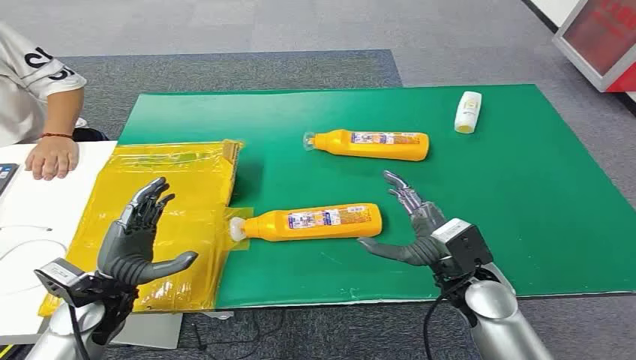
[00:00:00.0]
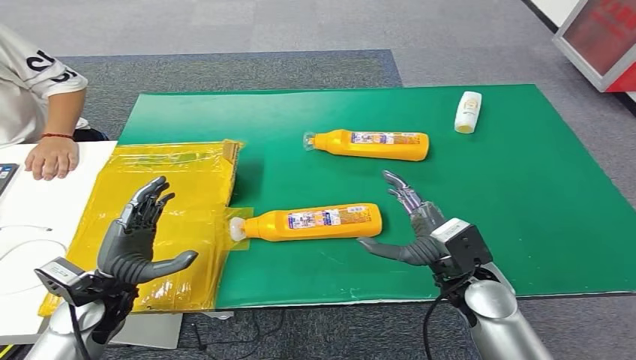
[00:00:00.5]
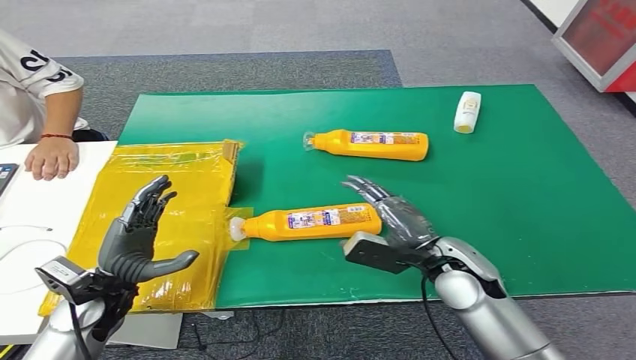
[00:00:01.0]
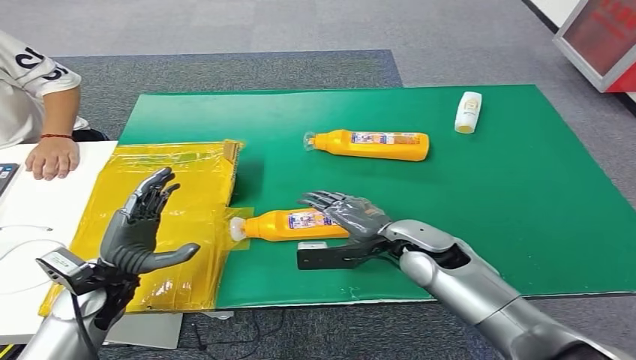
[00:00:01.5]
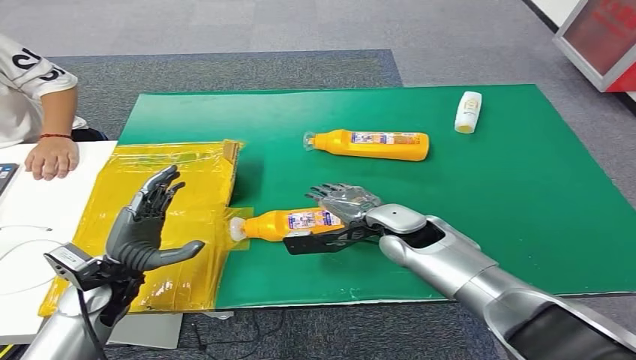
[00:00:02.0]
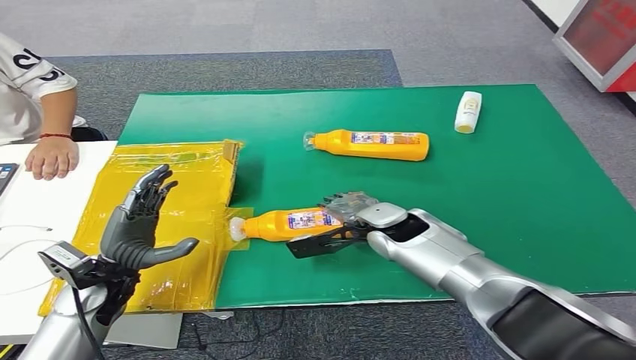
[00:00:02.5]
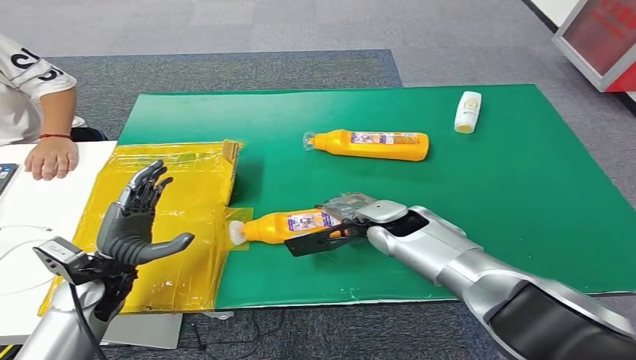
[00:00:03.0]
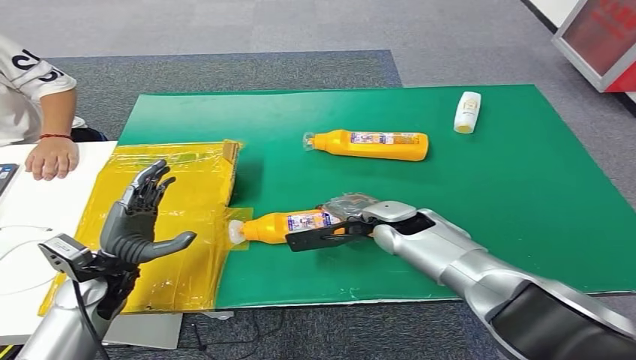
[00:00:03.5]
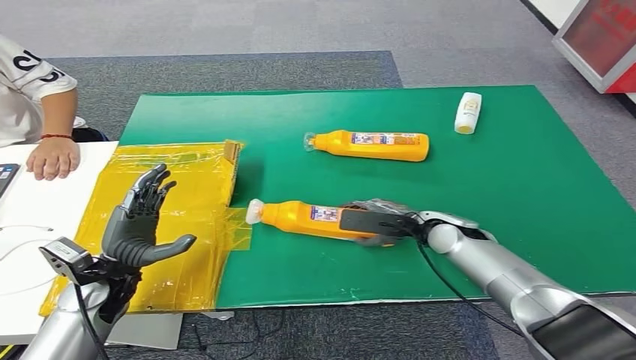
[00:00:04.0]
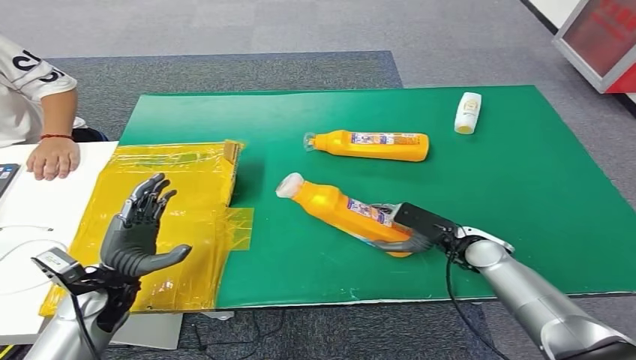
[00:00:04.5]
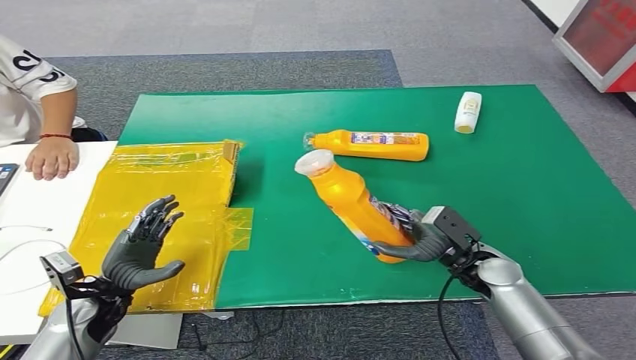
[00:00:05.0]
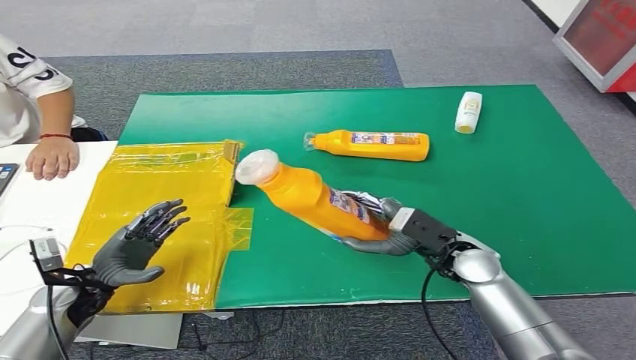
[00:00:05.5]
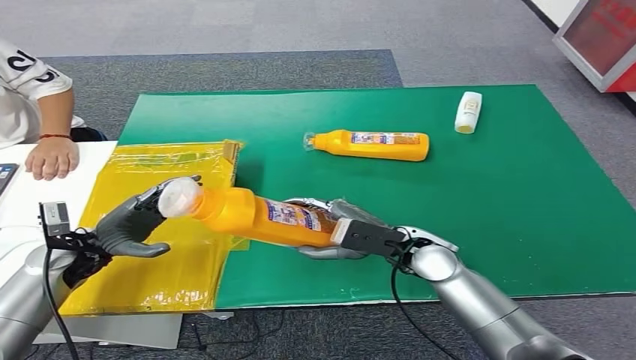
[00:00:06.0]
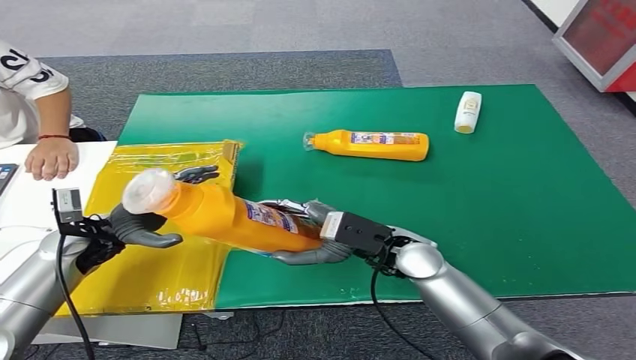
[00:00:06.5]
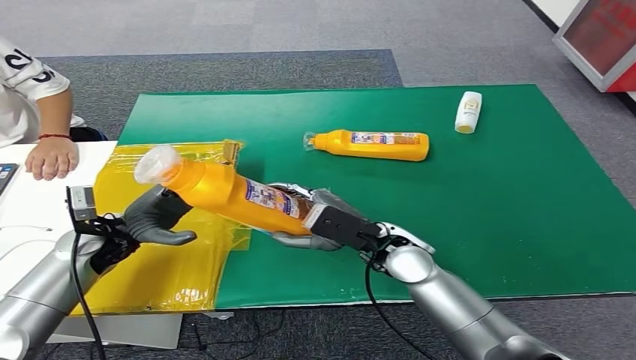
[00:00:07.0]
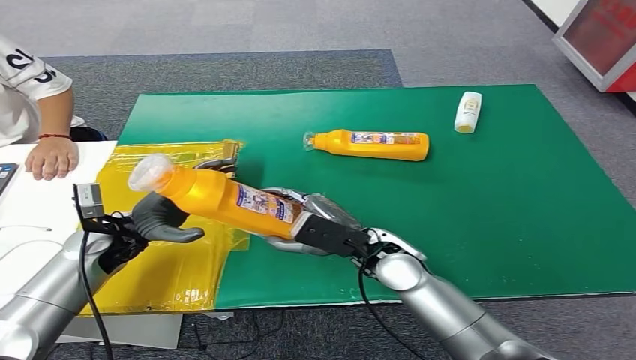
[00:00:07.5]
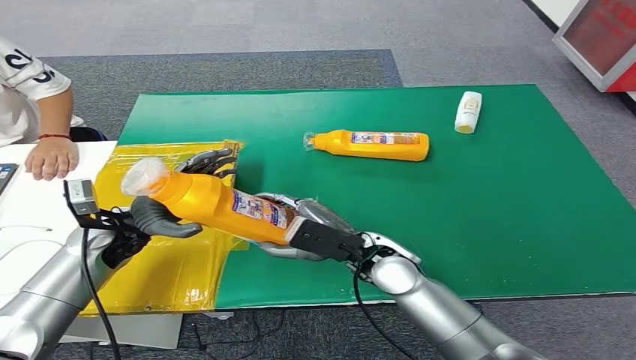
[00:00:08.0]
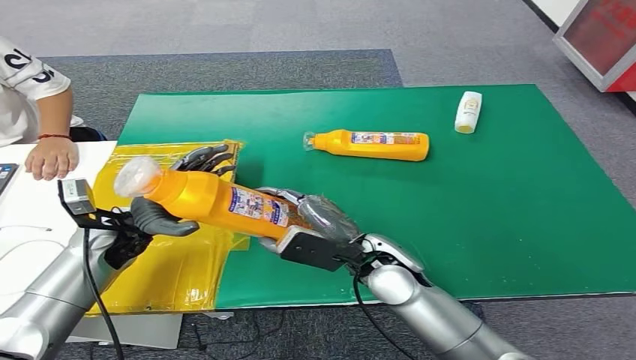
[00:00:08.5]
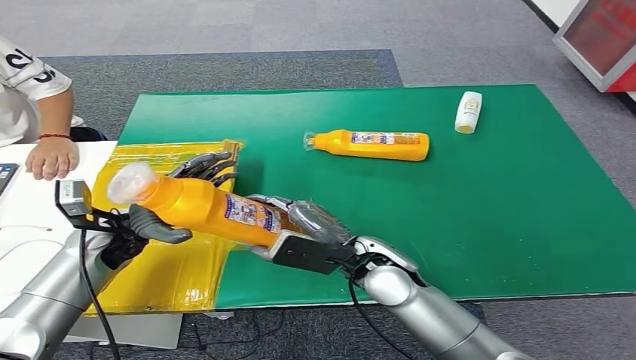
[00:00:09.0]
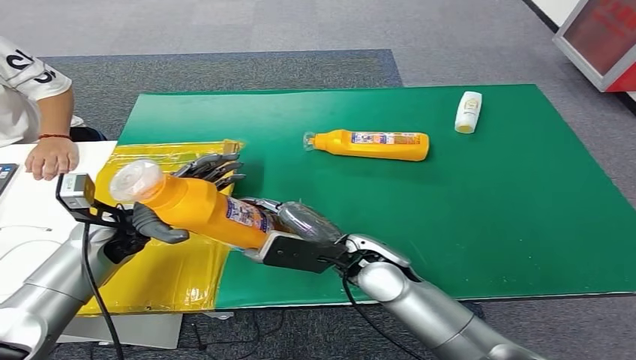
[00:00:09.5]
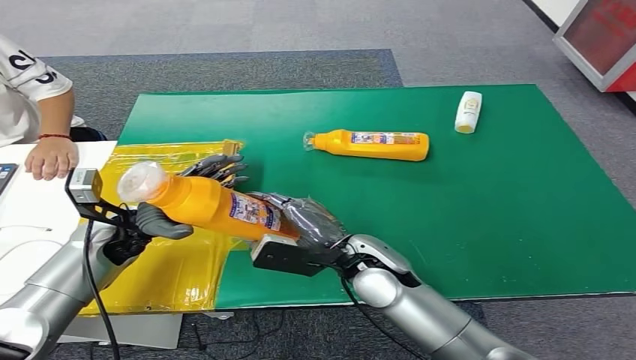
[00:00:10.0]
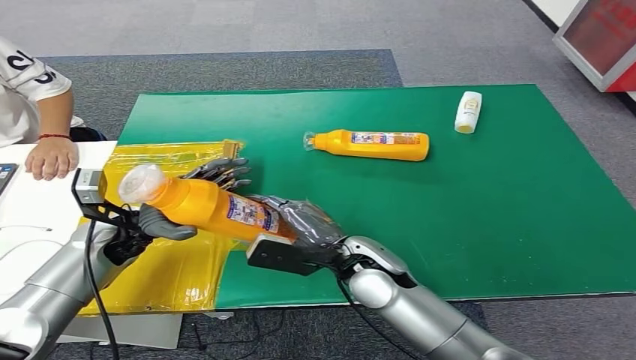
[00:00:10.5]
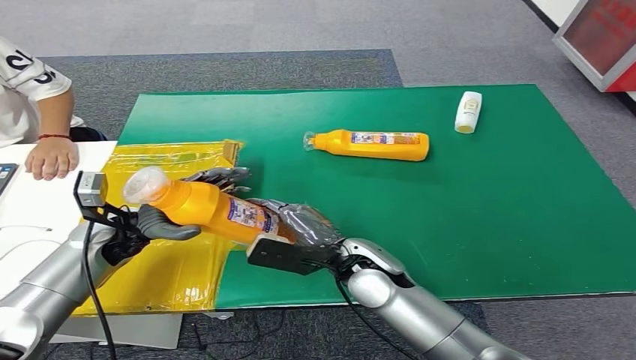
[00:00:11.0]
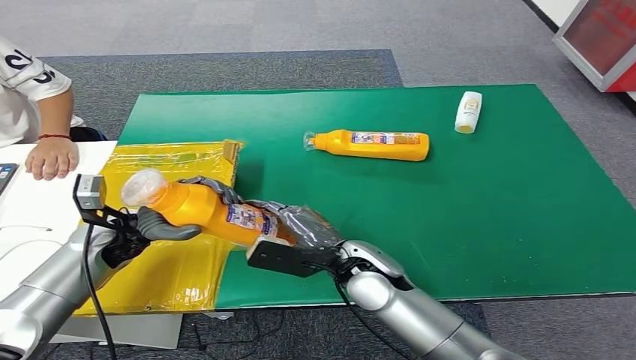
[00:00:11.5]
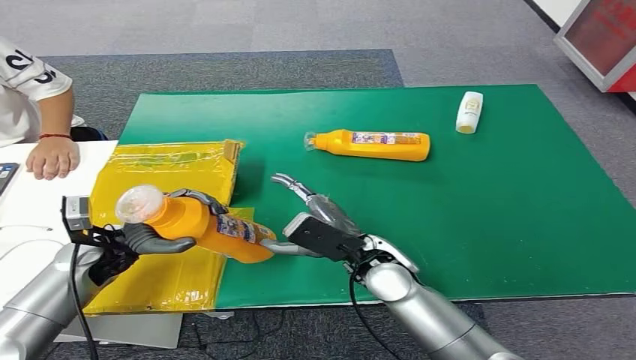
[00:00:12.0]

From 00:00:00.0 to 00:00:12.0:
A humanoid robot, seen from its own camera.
Step, from 00:00:00.0 to 00:00:04.5: Pick up the bottle from the table.
From 00:00:02.0 to 00:00:04.0: The right hand travels to the right by approximately 10 cm.
From 00:00:06.0 to 00:00:08.0: The left hand moves to the right, roughly 5 cm; the right hand is displaced to the left by roughly 5 cm.
From 00:00:08.0 to 00:00:12.0: There are only small adjustments of the hands.

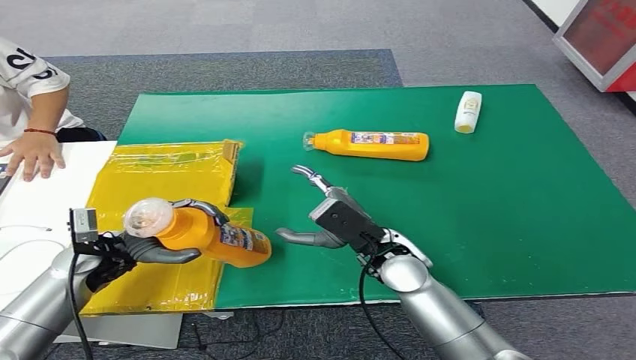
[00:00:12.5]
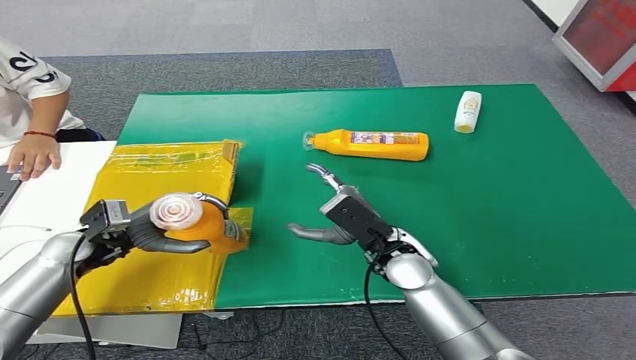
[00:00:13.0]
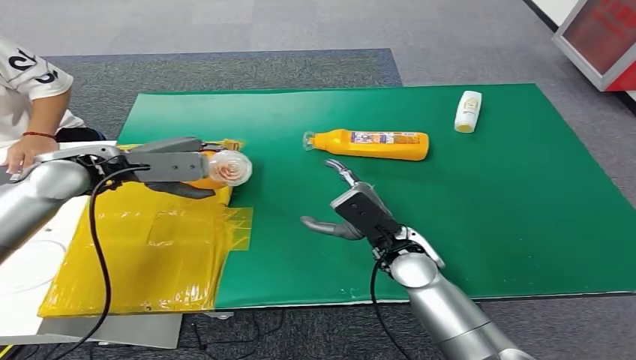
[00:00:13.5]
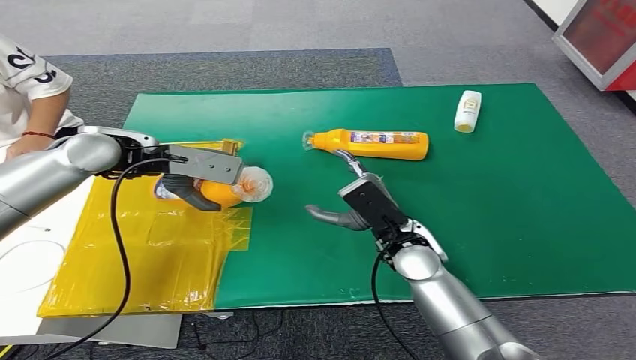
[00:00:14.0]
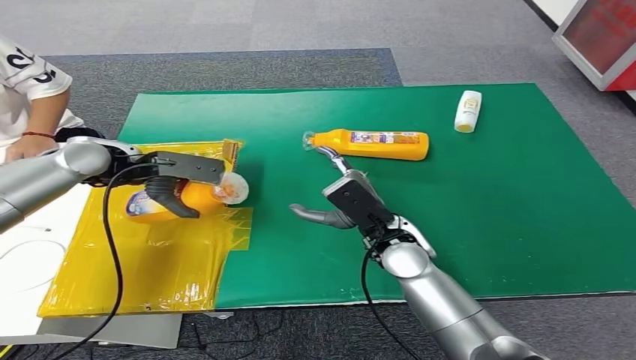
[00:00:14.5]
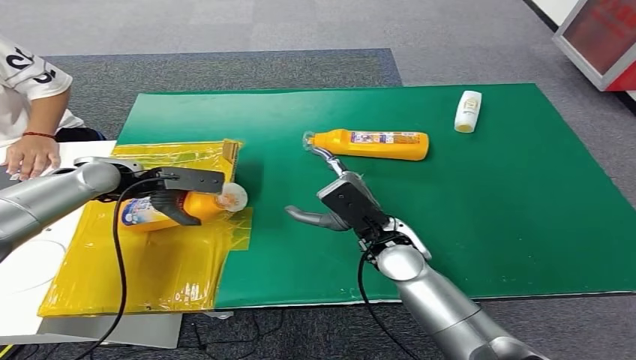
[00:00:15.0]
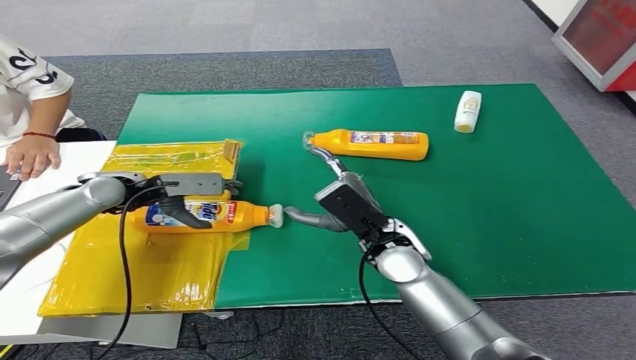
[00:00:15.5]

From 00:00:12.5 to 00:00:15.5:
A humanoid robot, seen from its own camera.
Step, from 00:00:12.5 to 00:00:15.5: Turn the bottle to the front side.
From 00:00:14.0 to 00:00:15.5: The left hand travels downward and to the left by some 15 cm.
